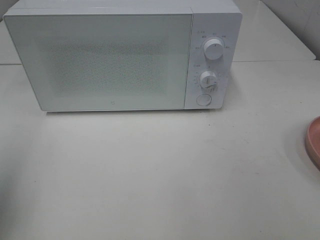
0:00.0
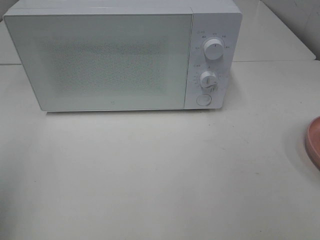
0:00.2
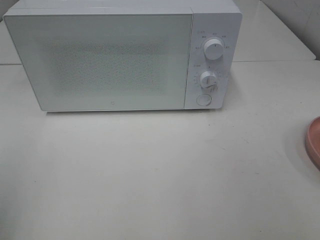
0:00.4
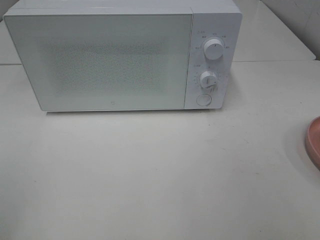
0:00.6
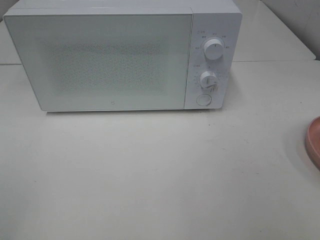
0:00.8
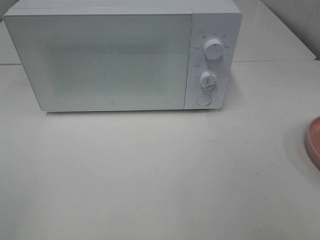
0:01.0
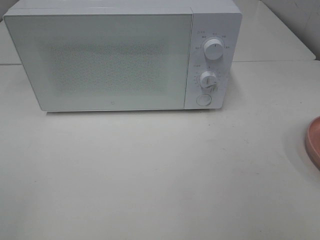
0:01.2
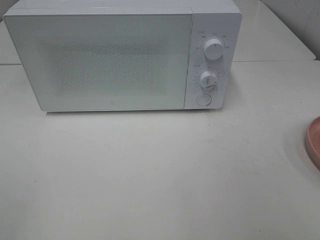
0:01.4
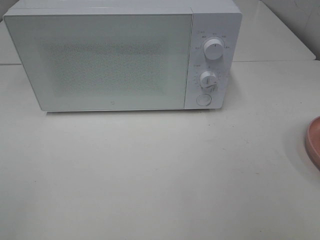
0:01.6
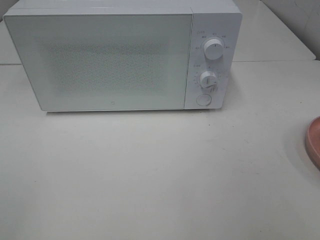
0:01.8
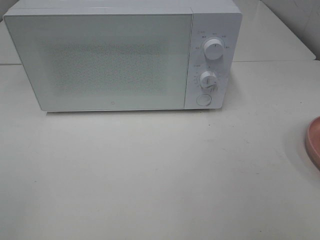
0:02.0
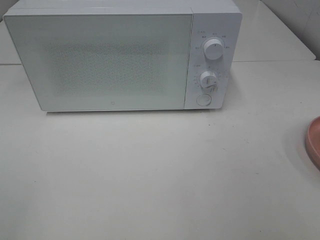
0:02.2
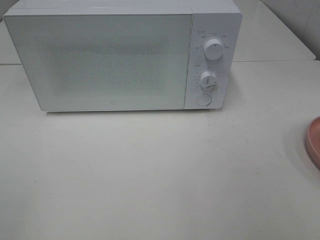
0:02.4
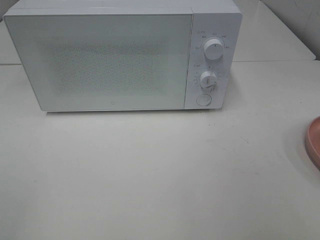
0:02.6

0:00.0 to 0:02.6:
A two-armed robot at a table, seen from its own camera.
Task of the whole recording: Heat Sandwich.
0:00.0 to 0:01.2: The left gripper moves backward, about 15 cm.
0:01.2 to 0:02.6: The two grippers keep their place.
